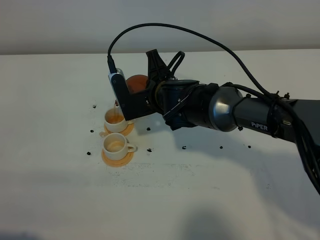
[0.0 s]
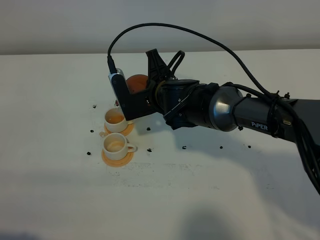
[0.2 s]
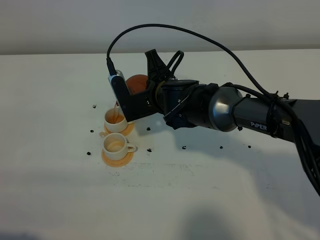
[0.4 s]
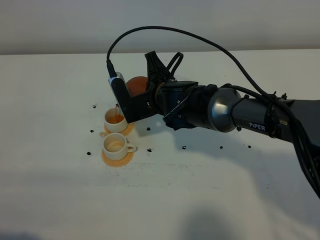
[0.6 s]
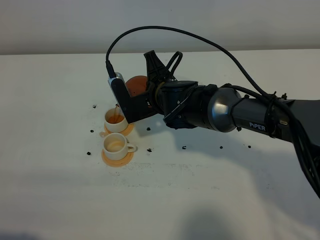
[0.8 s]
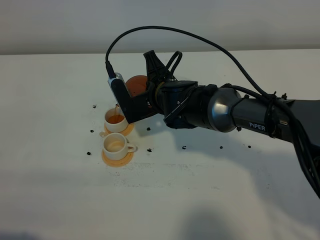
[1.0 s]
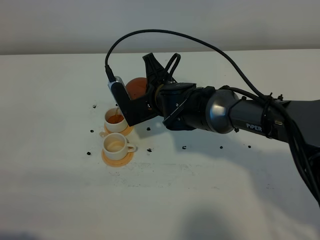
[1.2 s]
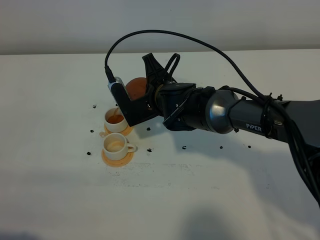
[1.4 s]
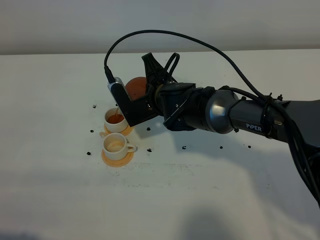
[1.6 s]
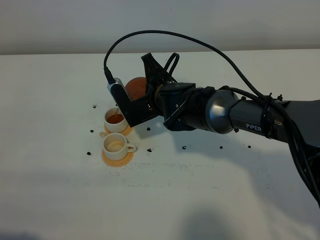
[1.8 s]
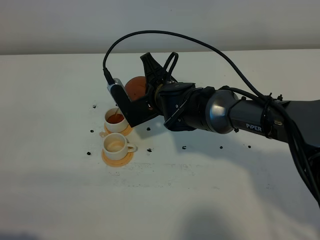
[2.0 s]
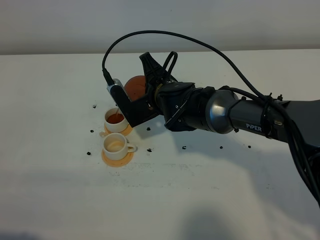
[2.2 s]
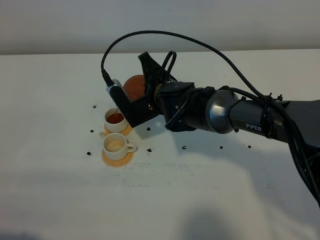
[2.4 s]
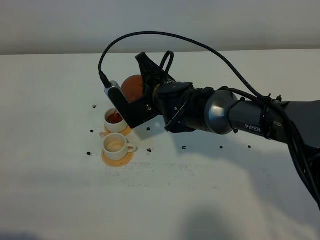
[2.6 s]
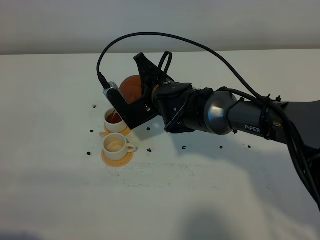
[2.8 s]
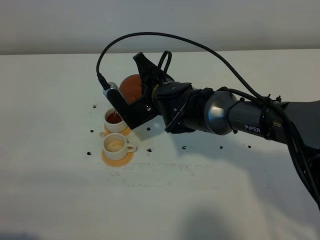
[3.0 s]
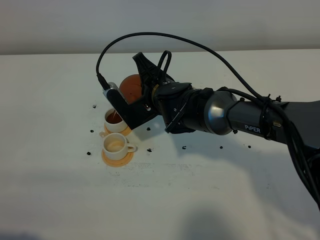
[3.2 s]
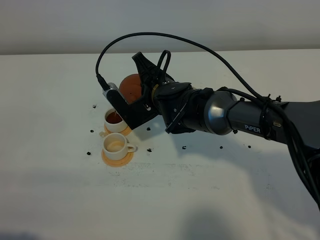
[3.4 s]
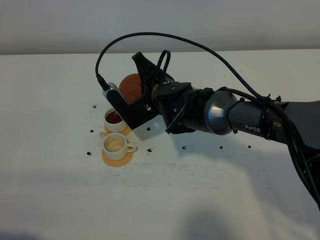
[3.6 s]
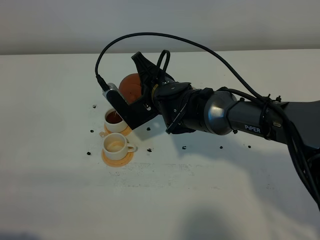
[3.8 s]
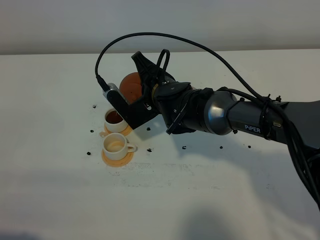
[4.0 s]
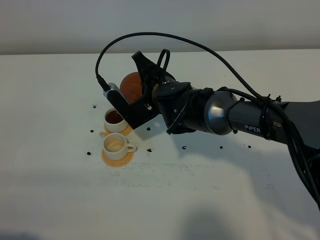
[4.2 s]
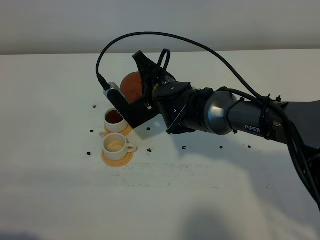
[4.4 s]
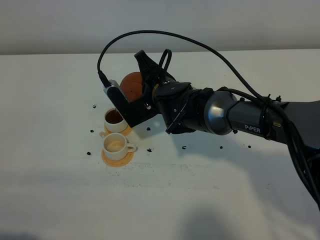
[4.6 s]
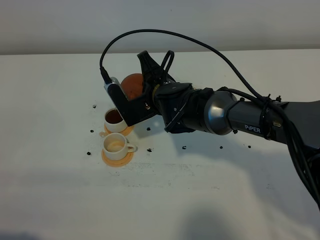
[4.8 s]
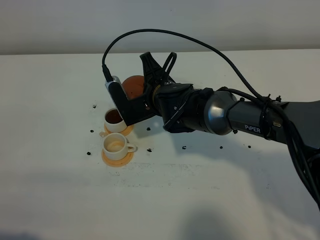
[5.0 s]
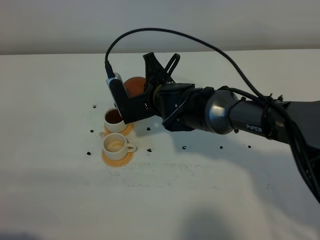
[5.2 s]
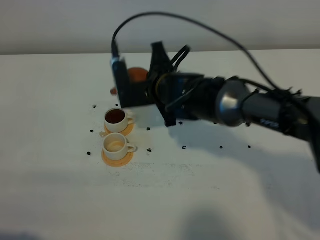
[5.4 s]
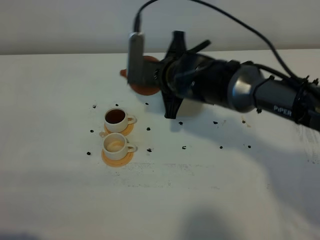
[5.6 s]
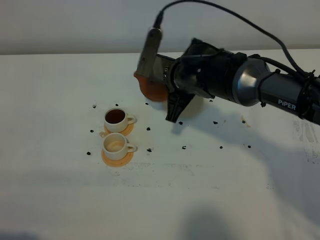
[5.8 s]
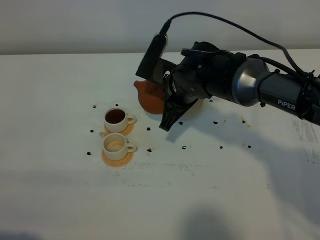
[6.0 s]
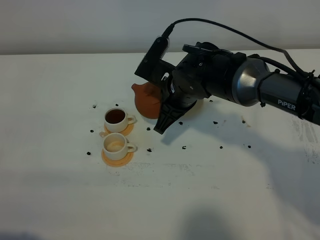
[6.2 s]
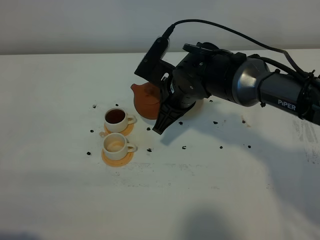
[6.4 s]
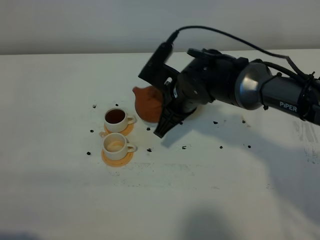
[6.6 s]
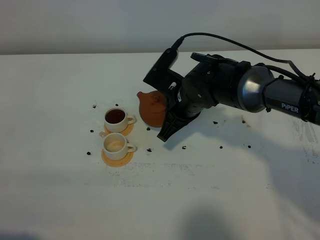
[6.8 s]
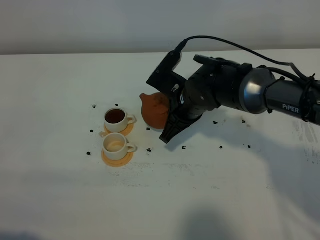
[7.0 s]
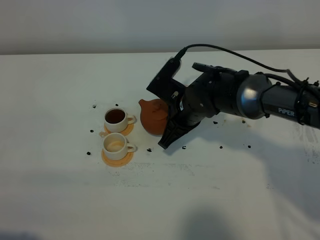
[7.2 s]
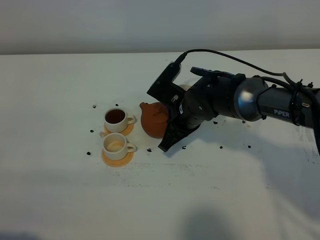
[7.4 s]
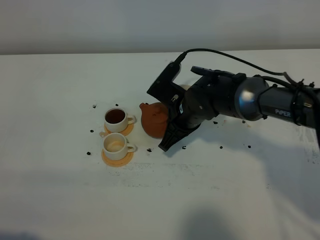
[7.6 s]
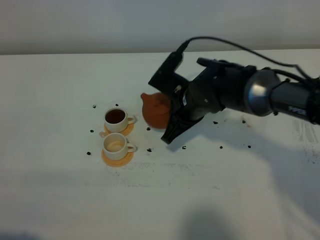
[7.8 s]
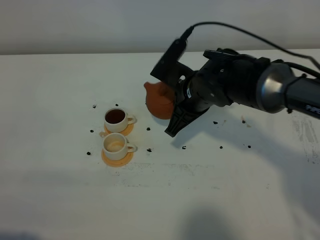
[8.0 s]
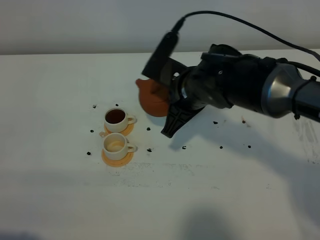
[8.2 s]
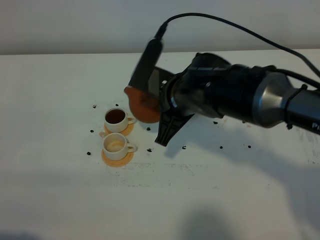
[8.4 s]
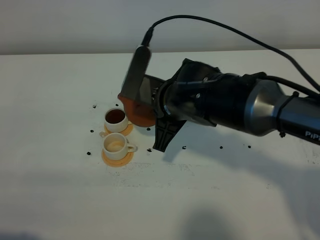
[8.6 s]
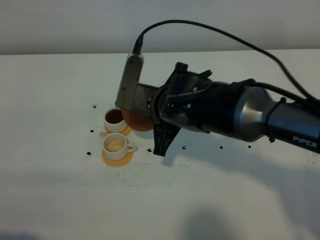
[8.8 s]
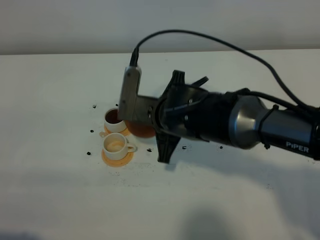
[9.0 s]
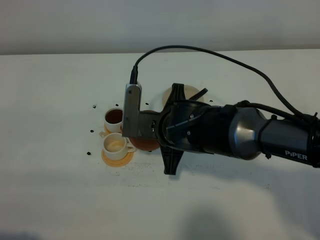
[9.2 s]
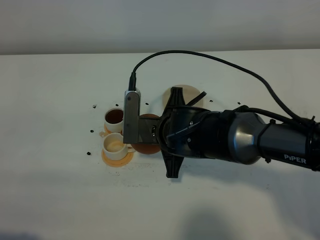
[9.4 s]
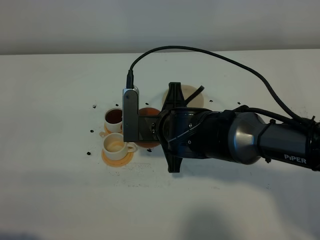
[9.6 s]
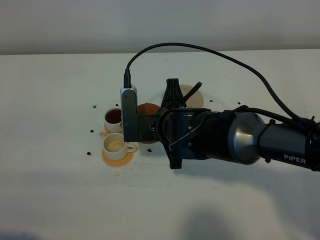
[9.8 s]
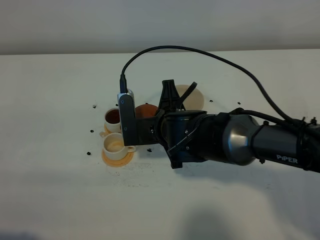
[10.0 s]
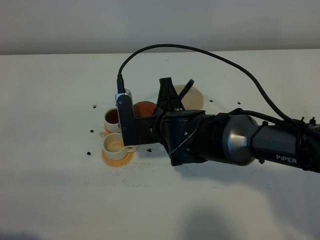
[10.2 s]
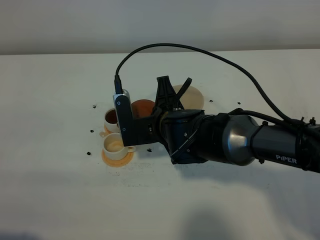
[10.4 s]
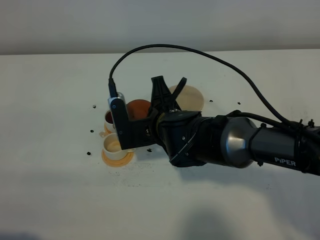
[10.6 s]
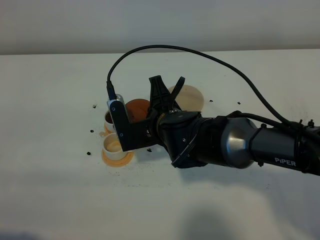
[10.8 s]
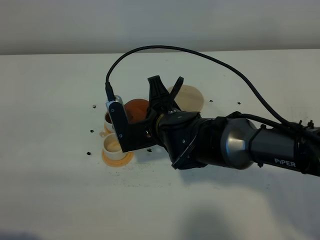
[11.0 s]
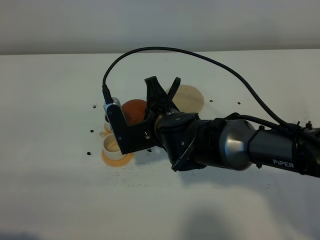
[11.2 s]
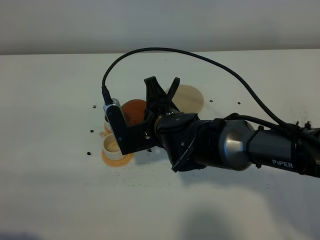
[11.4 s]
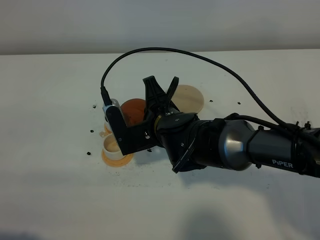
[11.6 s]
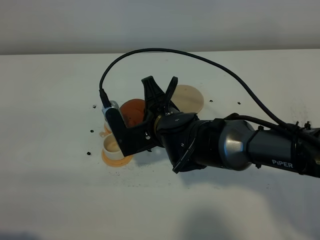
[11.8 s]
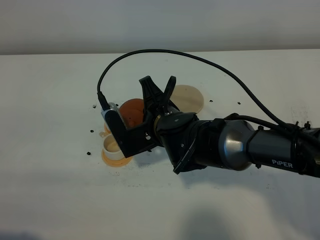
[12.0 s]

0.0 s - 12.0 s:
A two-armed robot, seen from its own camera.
Task of the whole recording: grasp the brown teapot and pour the tea into the two white teacups one by one, put the brown teapot back in its original place.
0.0 s - 3.0 s: There are only small adjustments of the grippers.
3.0 s - 4.4 s: Neither gripper changes place.
6.0 s - 7.6 s: The right gripper heads downward, covering roughly 5 cm.
7.6 s - 9.0 s: The right gripper goes roughly 5 cm backward.
10.4 s - 12.0 s: There are only small adjustments of the grippers.

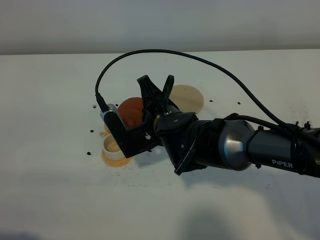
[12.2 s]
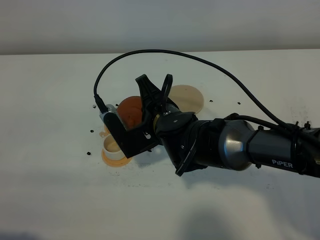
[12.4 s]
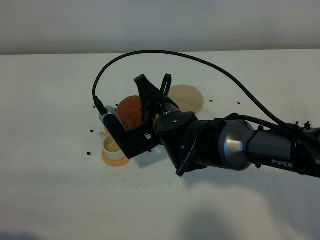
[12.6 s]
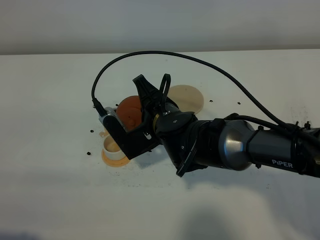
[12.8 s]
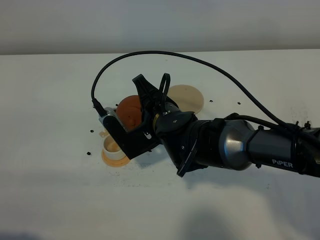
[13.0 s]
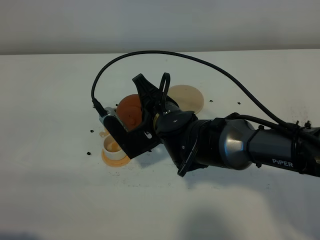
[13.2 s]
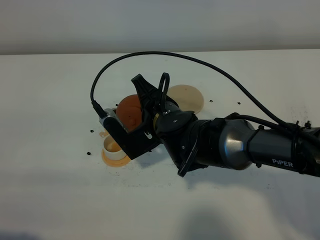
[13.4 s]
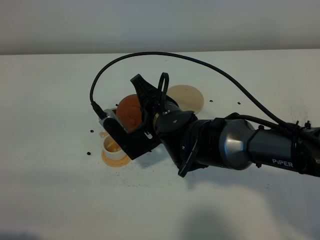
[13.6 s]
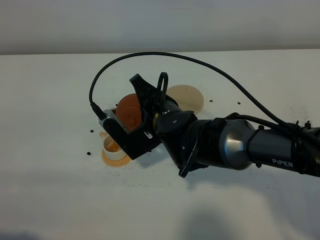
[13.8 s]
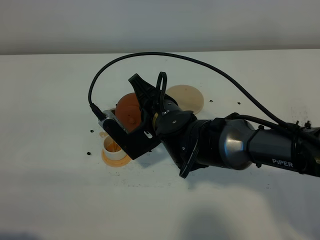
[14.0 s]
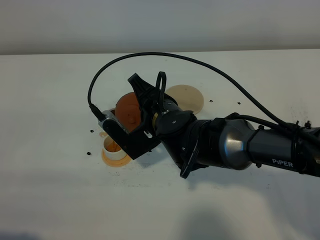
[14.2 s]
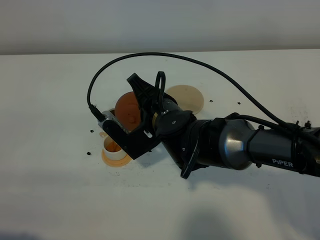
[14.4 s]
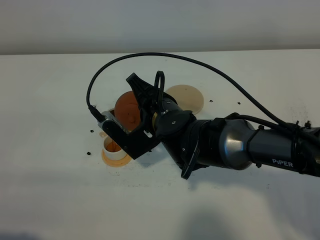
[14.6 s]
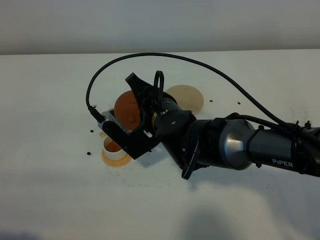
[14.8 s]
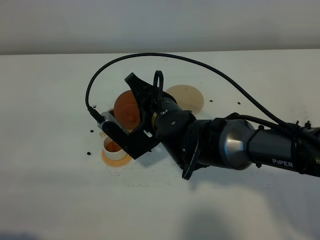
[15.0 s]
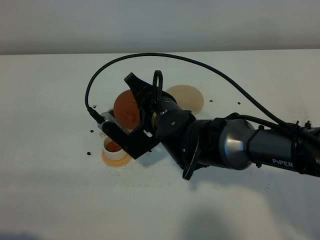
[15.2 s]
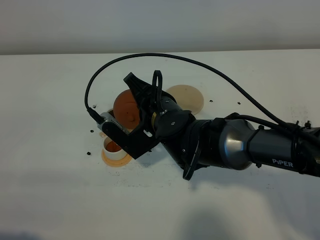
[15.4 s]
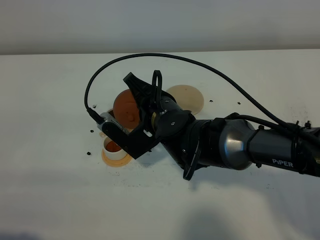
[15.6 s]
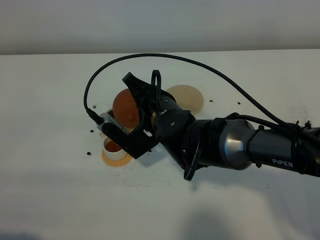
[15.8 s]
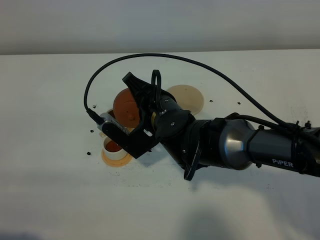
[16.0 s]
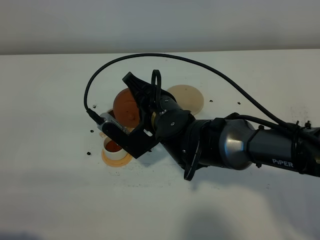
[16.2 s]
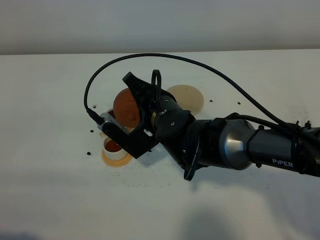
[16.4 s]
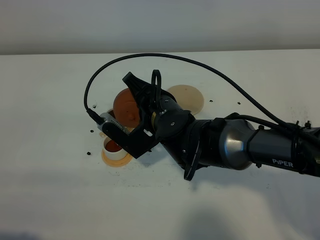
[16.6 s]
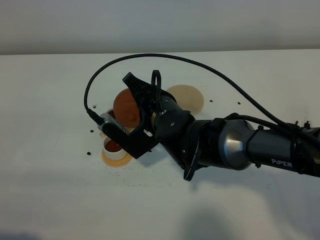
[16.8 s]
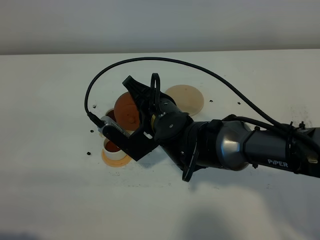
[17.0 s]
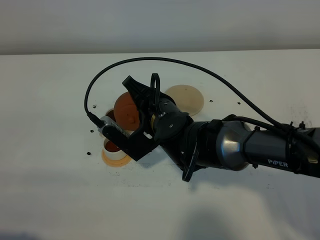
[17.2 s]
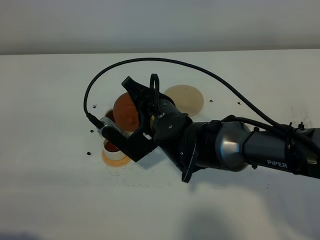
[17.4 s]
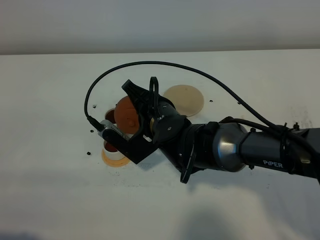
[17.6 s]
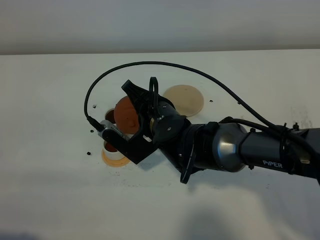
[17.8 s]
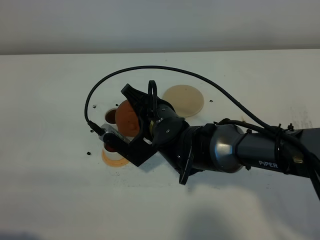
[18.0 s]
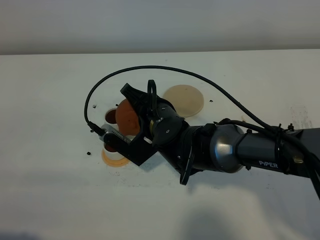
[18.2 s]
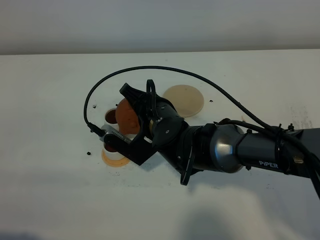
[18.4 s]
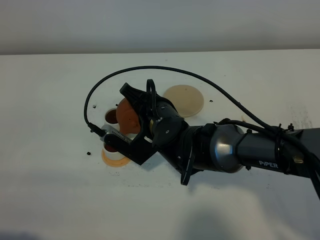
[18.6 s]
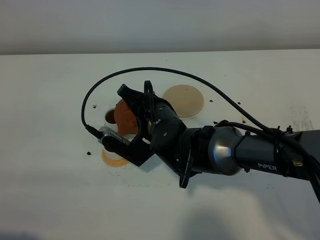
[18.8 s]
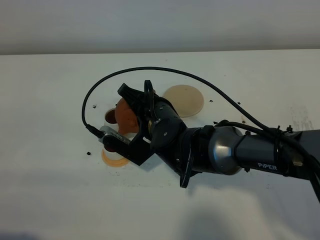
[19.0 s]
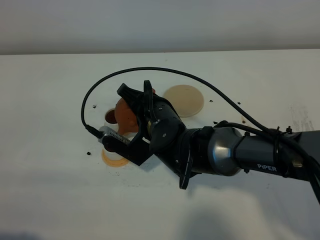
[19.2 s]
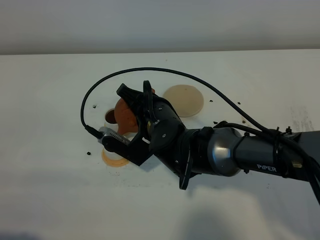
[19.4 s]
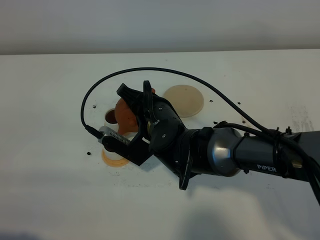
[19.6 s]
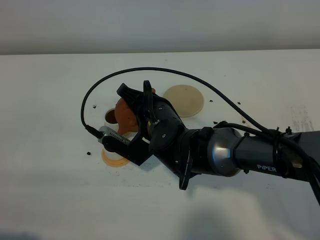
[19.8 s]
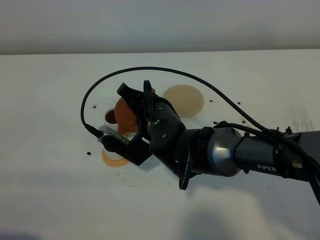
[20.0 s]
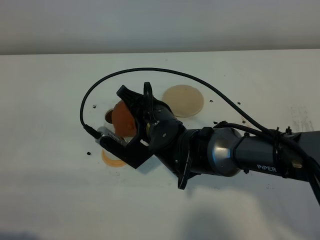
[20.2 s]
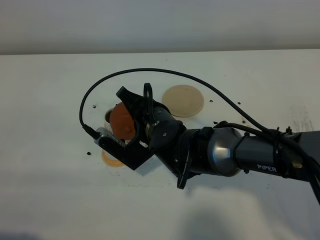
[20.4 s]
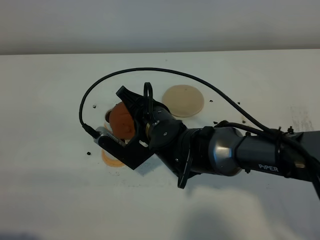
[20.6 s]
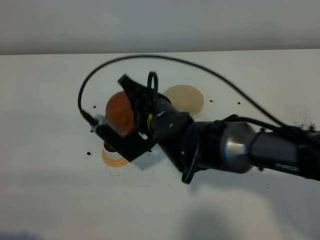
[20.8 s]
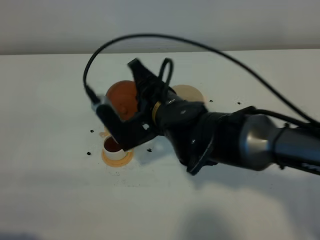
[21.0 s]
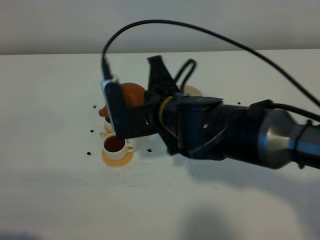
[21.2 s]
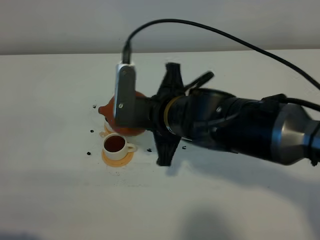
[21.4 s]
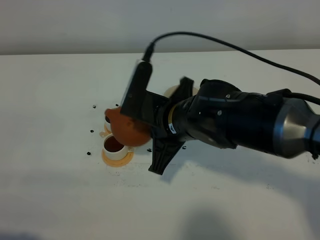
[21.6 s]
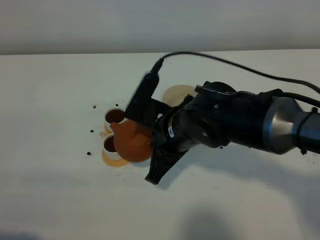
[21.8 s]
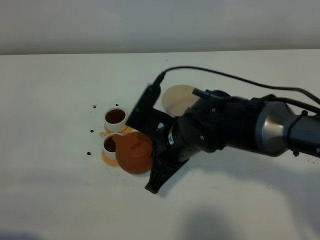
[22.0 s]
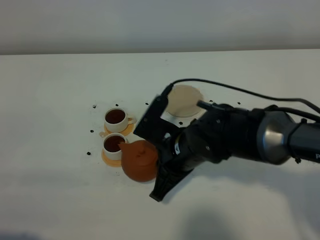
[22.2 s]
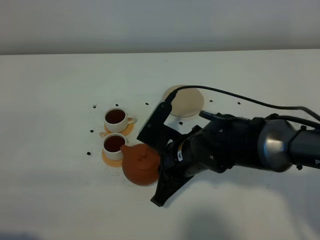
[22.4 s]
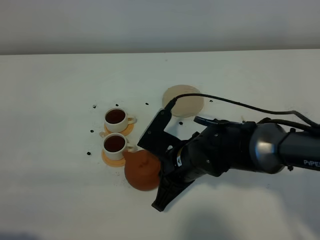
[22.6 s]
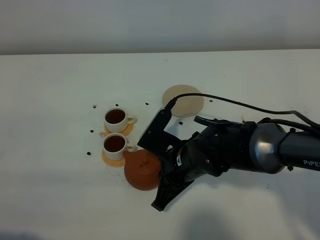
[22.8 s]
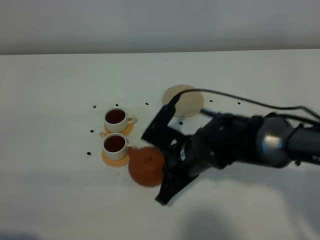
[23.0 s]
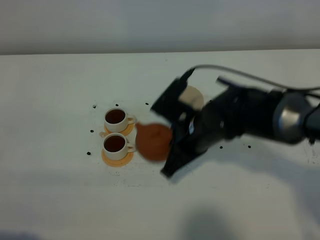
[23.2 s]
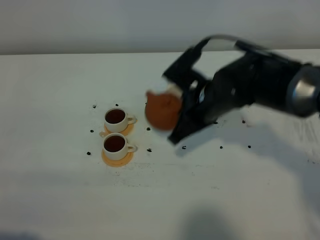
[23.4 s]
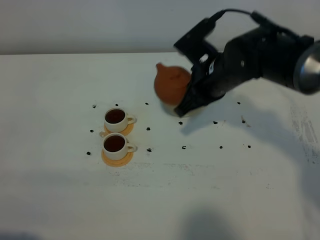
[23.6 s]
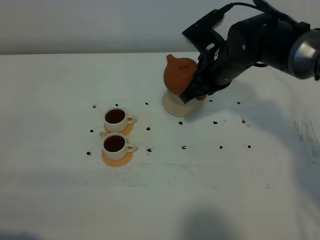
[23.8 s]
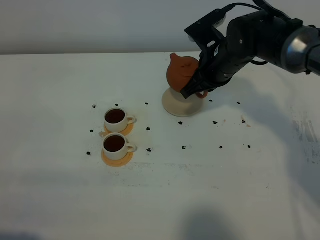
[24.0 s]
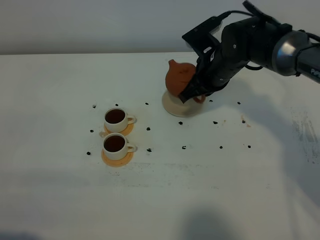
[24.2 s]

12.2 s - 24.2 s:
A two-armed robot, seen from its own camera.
Task of the whole recording: grasp the brown teapot and pour the tea into the two white teacups one by one, put the brown teapot back in its original place.
Step, 12.2 s - 20.6 s: Pour tea into the teacup with the right gripper.
12.2 s - 15.2 s: The grippers move only a little.
15.2 s - 16.6 s: Both grippers stay about where they are.
16.6 s - 18.2 s: There are only small adjustments of the grippers.
18.2 s - 19.8 s: Both grippers stay put.
19.8 s - 21.2 s: The right gripper is displaced upward by approximately 5 cm.
21.2 s - 22.6 s: The right gripper travels downward by about 10 cm.
22.6 s - 24.2 s: The right gripper goes roughly 15 cm forward.
